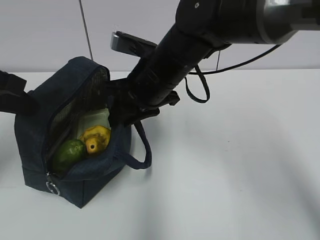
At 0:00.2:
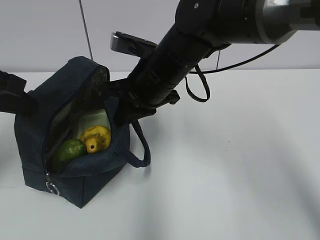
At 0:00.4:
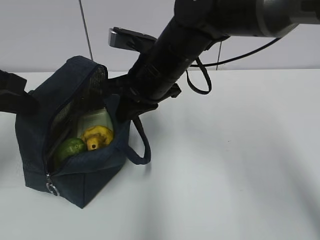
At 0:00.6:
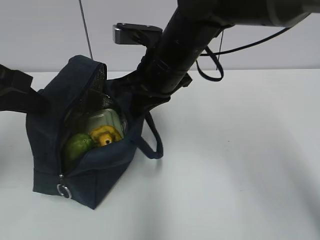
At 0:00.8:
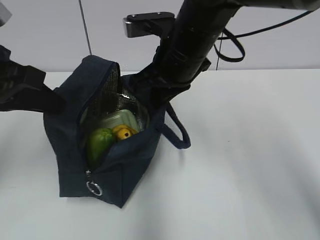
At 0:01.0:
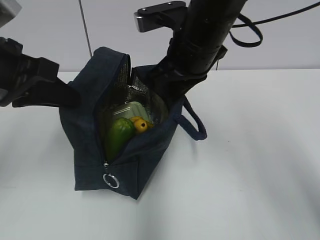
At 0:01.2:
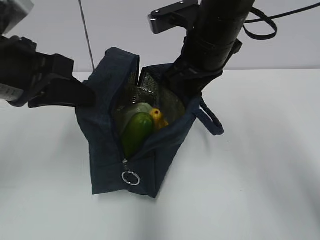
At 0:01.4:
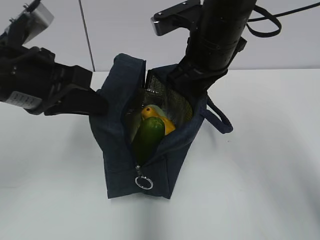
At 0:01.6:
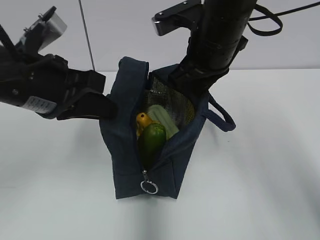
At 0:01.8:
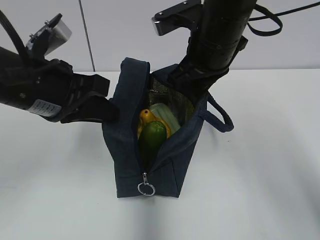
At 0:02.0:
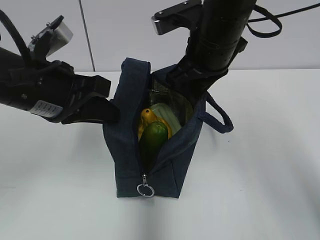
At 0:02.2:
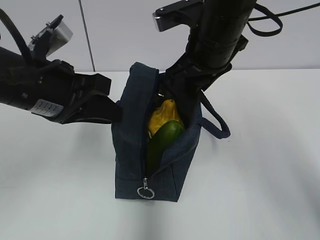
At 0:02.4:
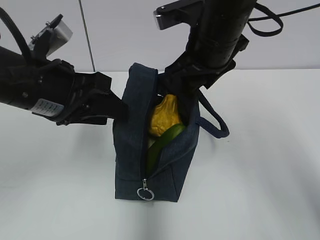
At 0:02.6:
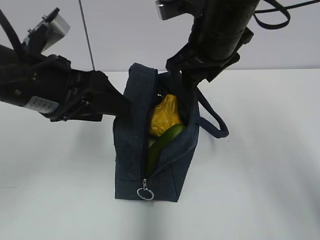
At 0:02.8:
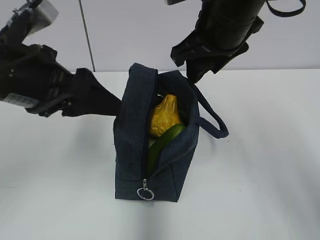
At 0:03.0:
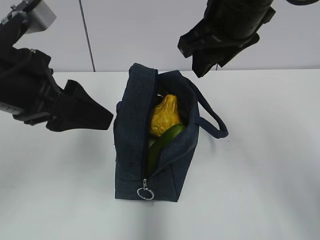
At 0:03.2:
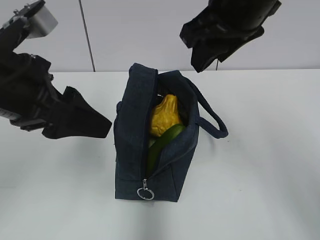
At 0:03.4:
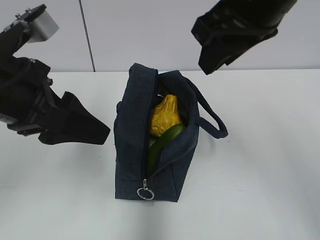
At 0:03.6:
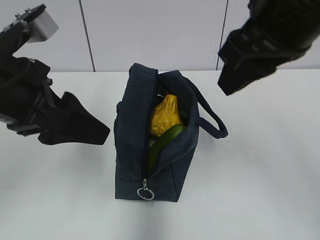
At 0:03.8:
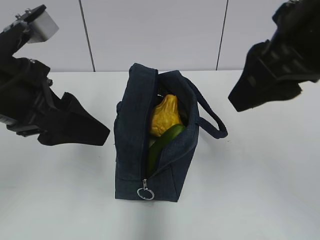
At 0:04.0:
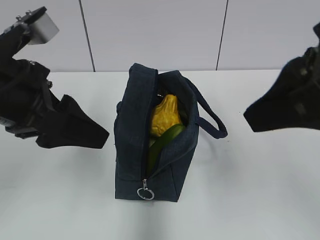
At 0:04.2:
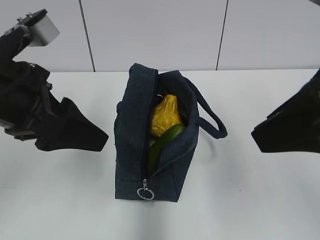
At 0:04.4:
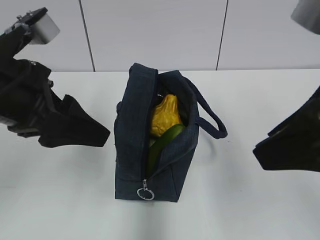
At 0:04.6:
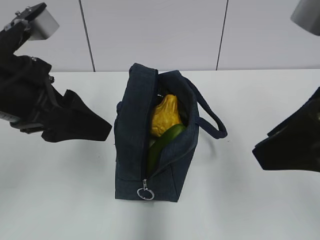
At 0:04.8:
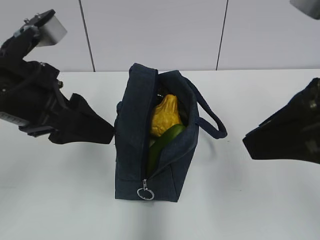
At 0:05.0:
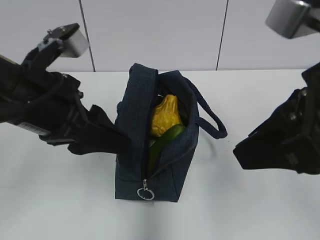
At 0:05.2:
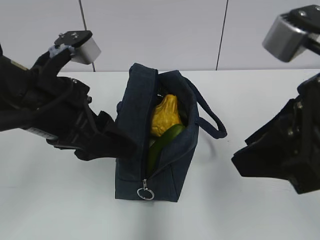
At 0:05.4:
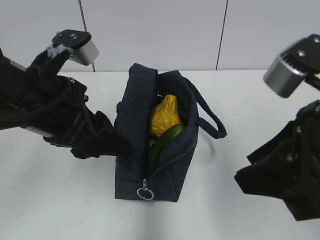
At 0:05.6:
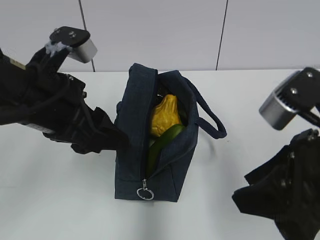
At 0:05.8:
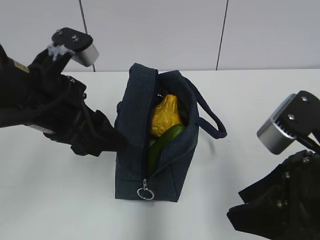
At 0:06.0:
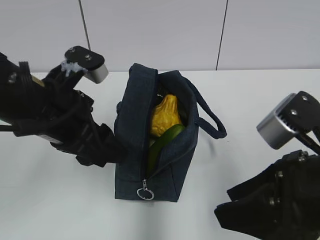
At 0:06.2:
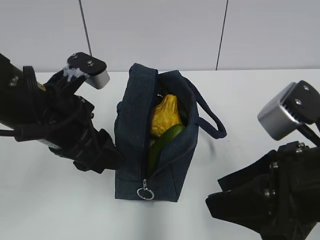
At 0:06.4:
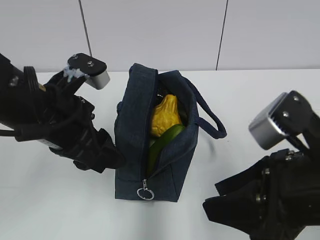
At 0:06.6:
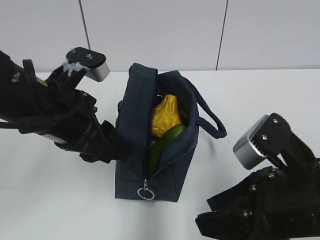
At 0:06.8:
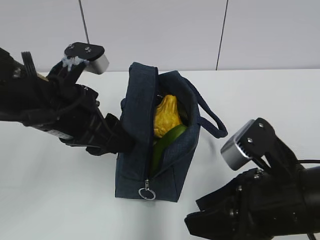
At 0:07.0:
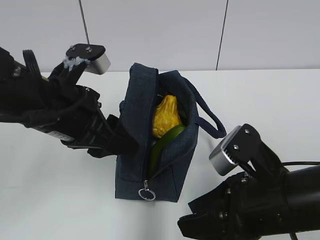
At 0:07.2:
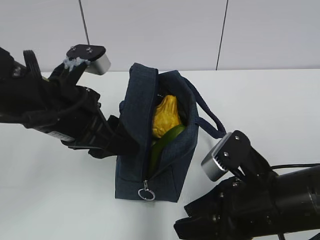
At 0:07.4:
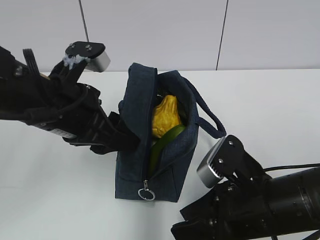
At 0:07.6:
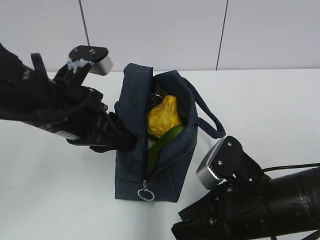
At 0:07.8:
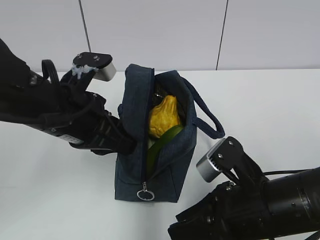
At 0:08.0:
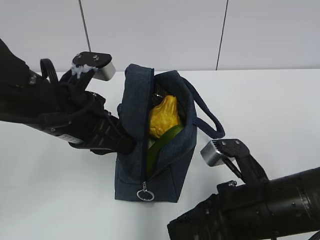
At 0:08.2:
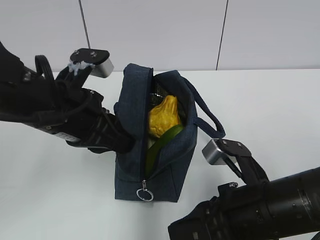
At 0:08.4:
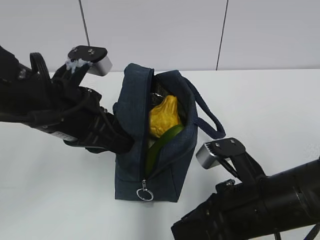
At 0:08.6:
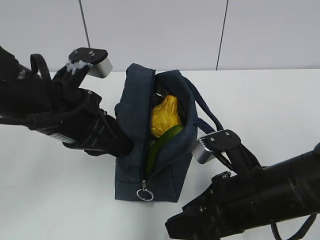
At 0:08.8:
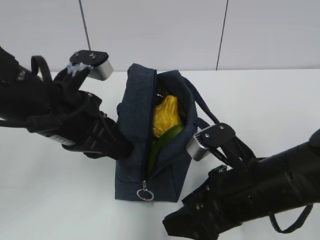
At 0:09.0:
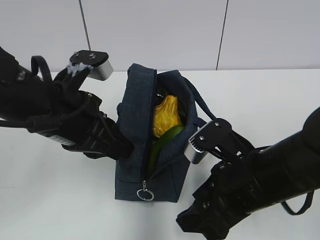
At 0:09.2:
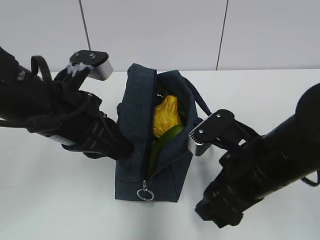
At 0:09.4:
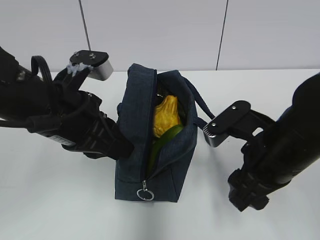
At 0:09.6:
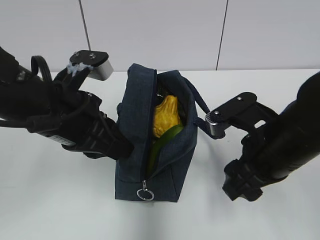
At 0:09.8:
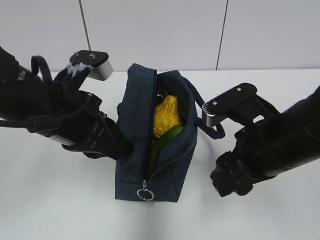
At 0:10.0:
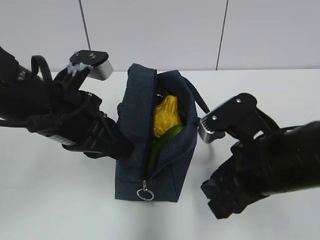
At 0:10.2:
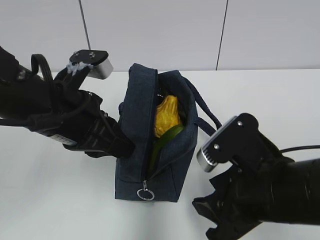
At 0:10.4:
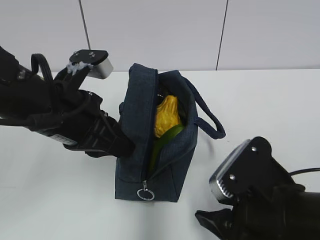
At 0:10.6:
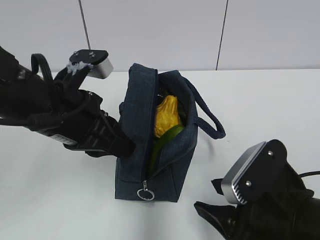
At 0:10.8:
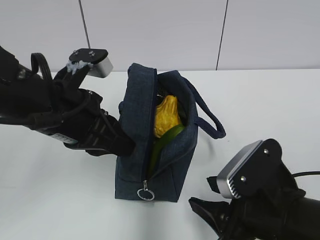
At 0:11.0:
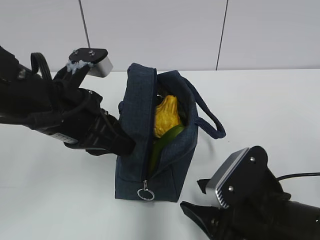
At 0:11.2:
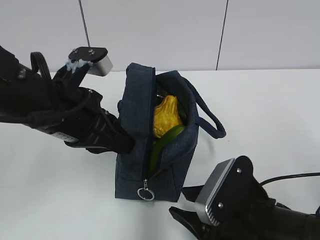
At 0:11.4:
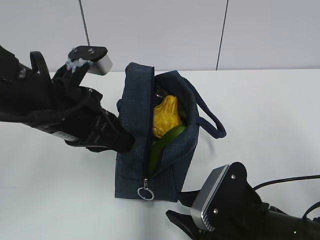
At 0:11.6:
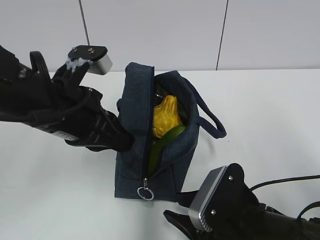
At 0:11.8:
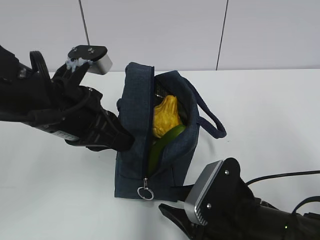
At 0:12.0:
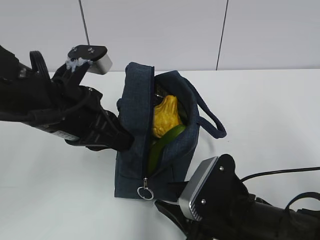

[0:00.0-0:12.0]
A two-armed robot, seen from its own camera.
0:00.0 to 0:01.6: The left gripper shifts approximately 10 cm to the right. The right gripper shifts about 10 cm to the right and upward, and closes up.
0:01.6 to 0:03.0: The right gripper goes about 5 cm upward, and opens its fingers, while the left gripper opens.
0:03.0 to 0:04.4: The right gripper goes some 15 cm backward.
0:04.4 to 0:06.0: The left gripper ends up about 5 cm from where it was, while the right gripper goes approximately 10 cm downward.
0:06.0 to 0:07.6: The right gripper goes roughly 10 cm downward. The left gripper closes its fingers.
0:07.6 to 0:09.0: The right gripper opens.
0:09.0 to 0:10.4: The right gripper shifts approximately 5 cm backward.
0:10.4 to 0:12.0: The right gripper goes roughly 5 cm downward.

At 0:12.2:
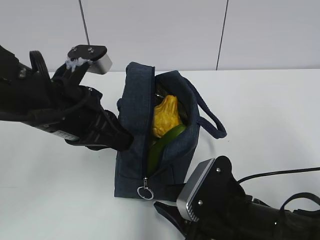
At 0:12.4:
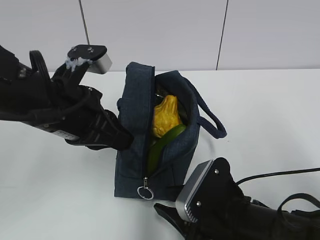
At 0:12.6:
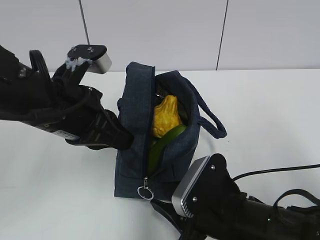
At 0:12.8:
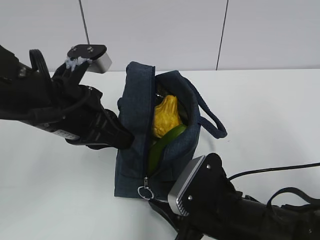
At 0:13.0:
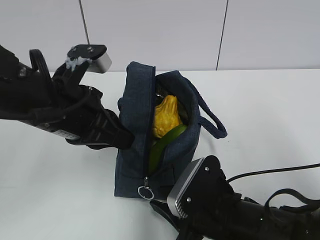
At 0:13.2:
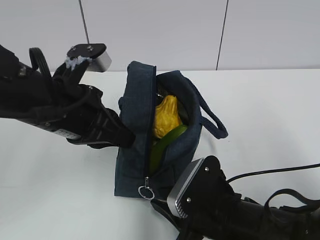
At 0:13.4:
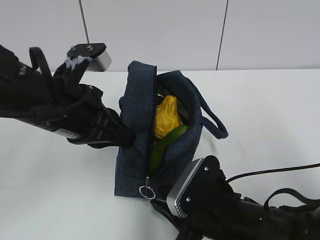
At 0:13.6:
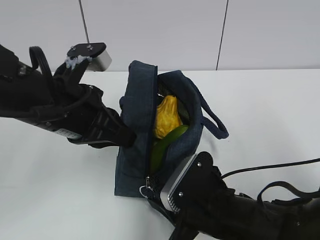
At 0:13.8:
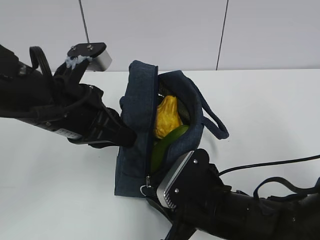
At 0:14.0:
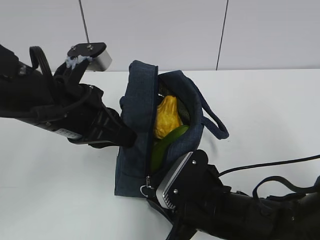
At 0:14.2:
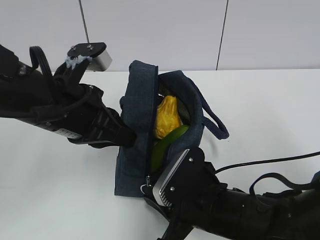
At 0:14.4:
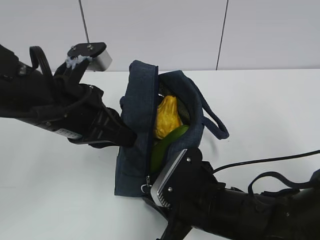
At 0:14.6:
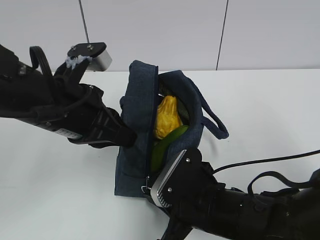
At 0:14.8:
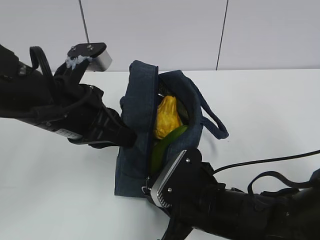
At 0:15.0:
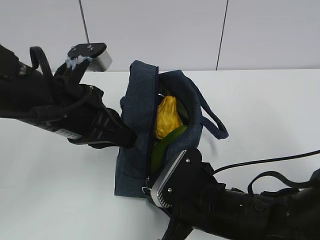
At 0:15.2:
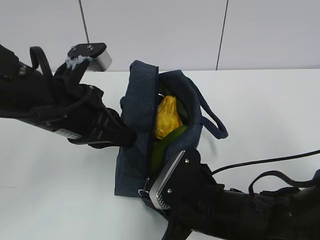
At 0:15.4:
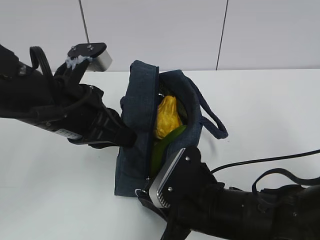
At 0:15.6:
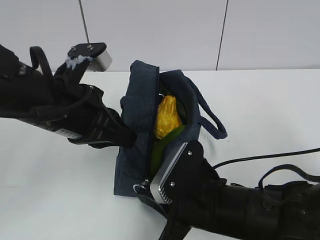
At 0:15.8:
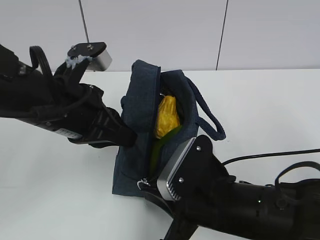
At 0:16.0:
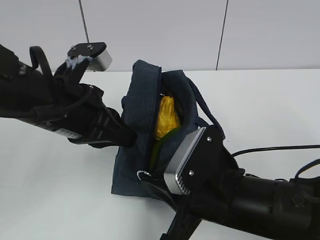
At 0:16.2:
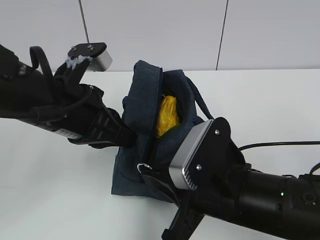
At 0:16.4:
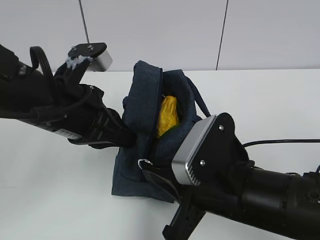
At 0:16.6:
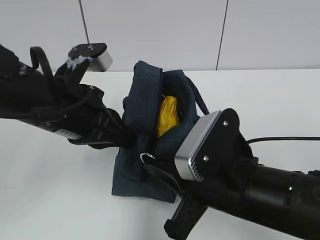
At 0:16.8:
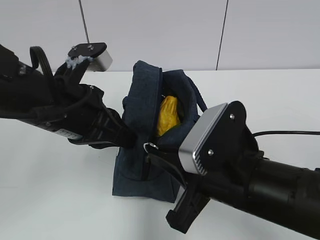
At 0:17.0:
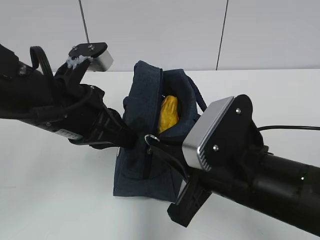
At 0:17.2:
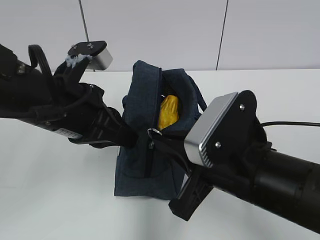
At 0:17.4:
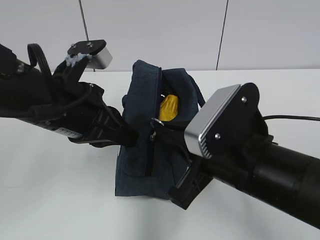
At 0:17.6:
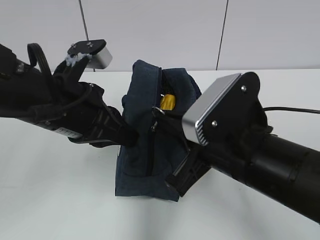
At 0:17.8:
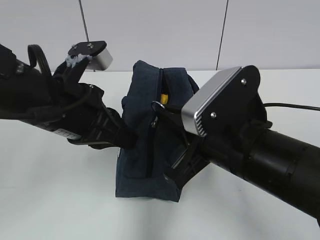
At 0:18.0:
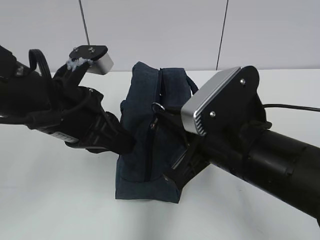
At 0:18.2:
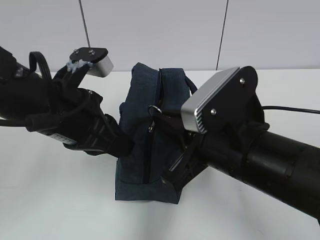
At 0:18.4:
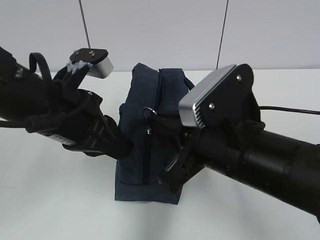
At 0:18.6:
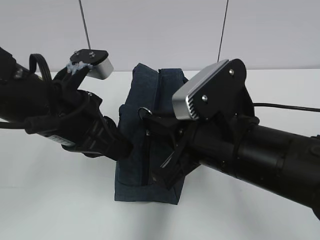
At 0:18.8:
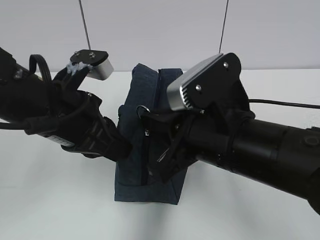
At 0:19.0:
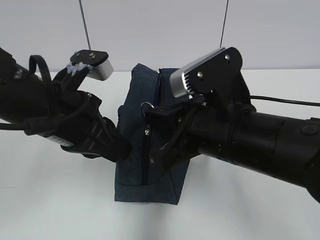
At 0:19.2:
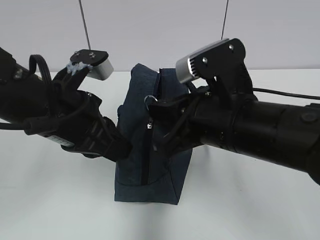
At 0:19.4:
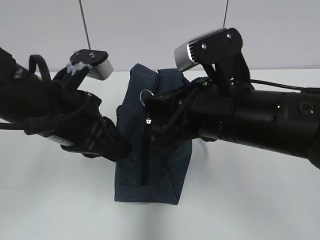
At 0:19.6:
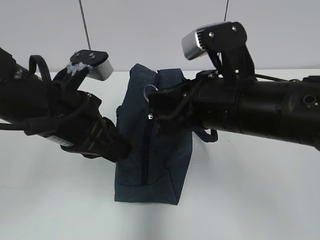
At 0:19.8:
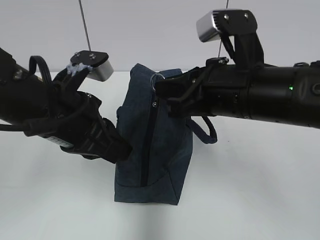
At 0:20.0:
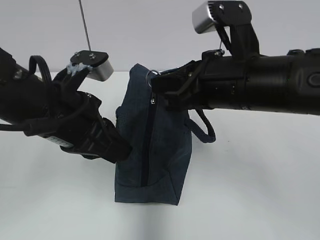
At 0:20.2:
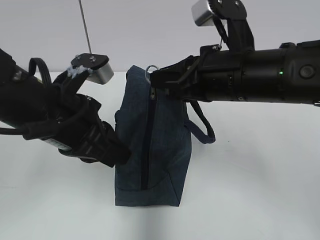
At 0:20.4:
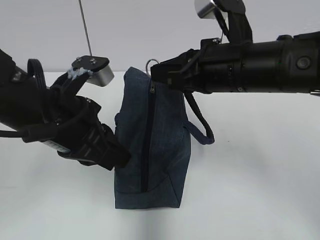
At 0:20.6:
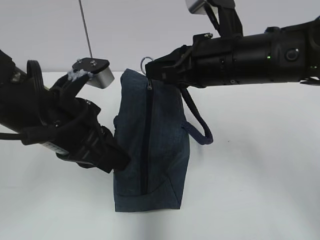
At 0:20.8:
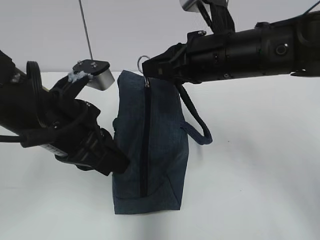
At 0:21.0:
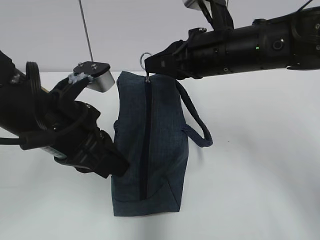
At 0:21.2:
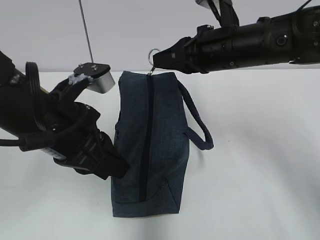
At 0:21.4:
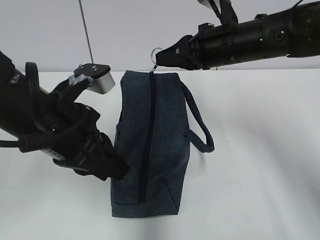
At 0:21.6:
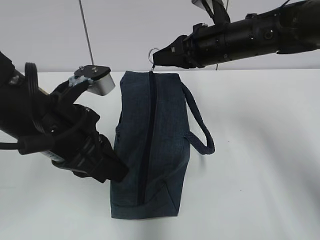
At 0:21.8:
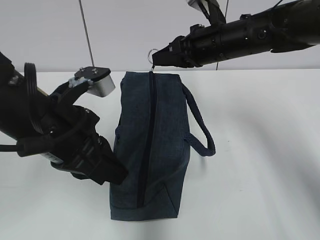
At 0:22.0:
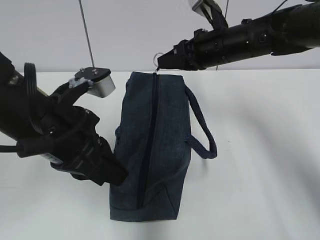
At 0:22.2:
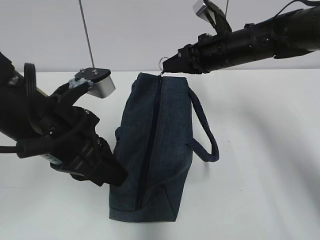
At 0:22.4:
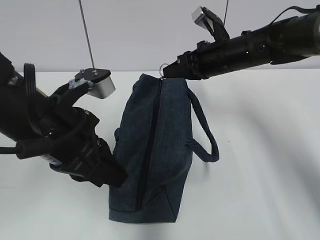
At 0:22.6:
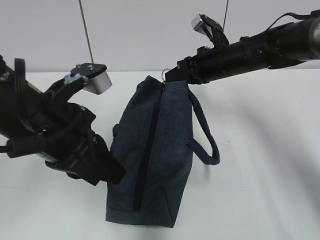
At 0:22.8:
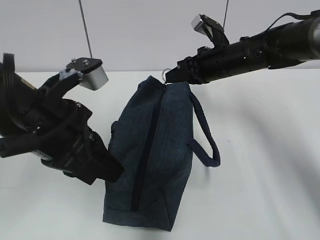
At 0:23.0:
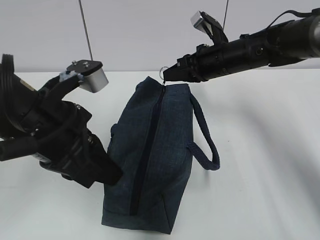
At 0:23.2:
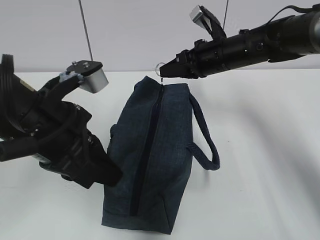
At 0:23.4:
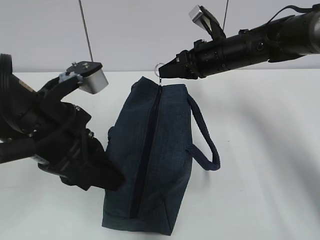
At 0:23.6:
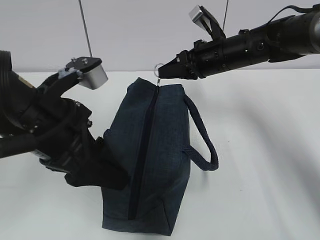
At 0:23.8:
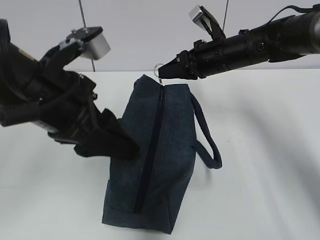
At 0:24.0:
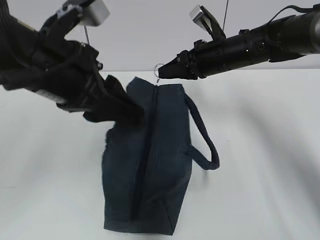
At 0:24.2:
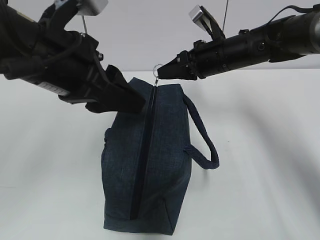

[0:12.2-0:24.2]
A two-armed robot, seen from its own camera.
0:12.2 to 0:13.8: There are only small adjustments of the grippers.
0:13.8 to 0:15.2: Neither gripper changes place.
0:15.2 to 0:16.6: The right gripper is displaced upward by roughly 10 cm.
0:18.2 to 0:19.8: The right gripper goes about 5 cm forward.
0:19.8 to 0:21.2: The right gripper heads forward, covering approximately 10 cm.
0:21.2 to 0:22.6: The right gripper moves forward and downward, about 10 cm.
0:22.6 to 0:24.2: The left gripper moves upward, some 5 cm, and opens.
